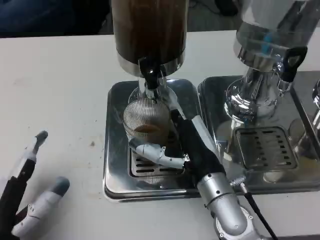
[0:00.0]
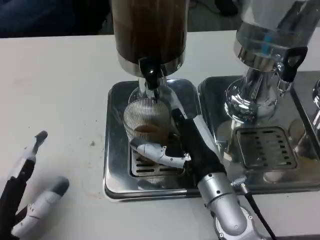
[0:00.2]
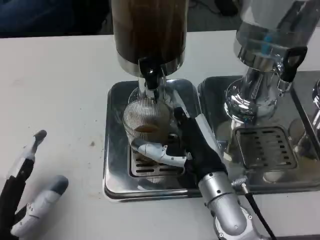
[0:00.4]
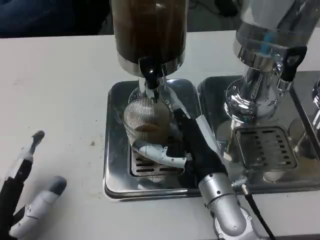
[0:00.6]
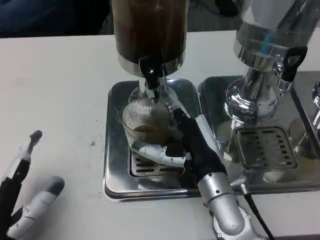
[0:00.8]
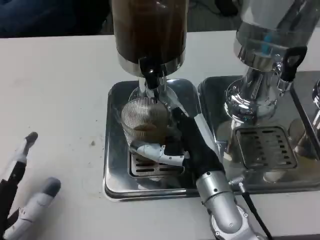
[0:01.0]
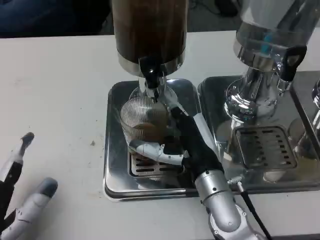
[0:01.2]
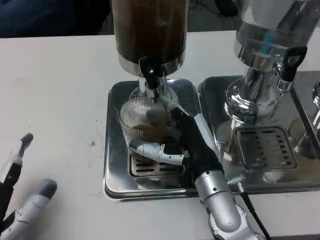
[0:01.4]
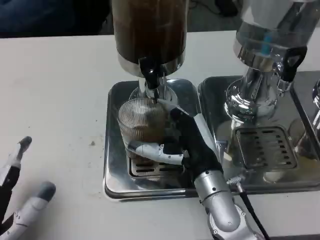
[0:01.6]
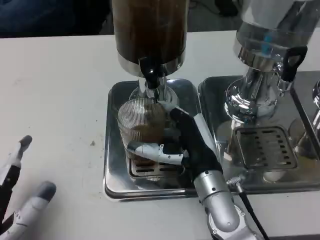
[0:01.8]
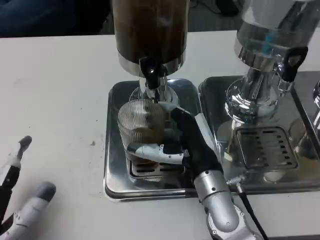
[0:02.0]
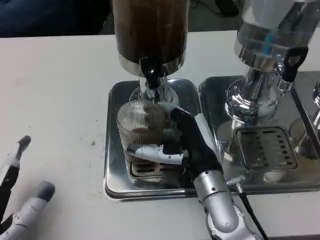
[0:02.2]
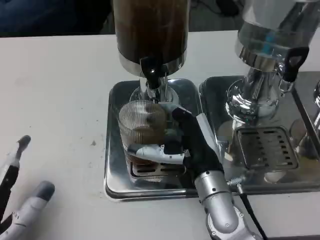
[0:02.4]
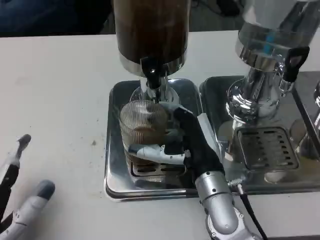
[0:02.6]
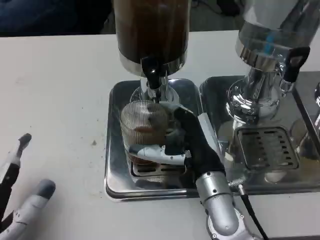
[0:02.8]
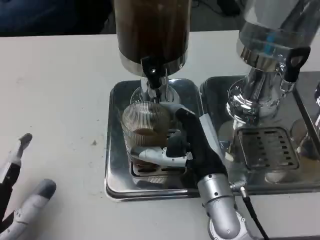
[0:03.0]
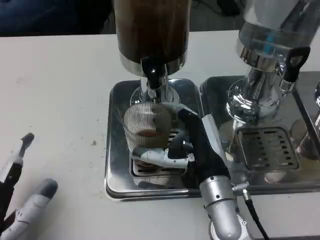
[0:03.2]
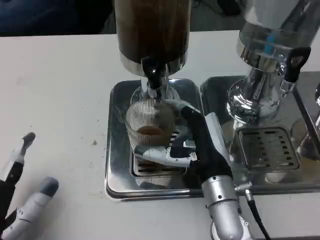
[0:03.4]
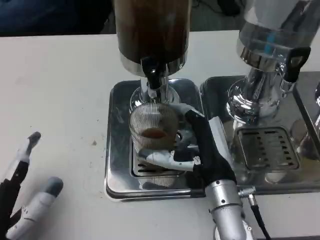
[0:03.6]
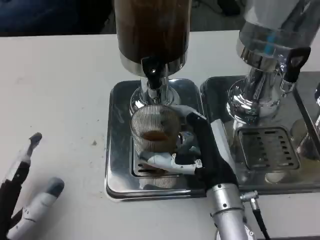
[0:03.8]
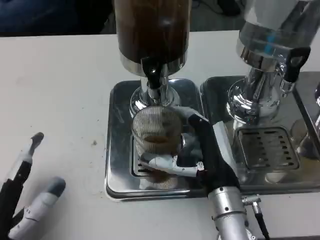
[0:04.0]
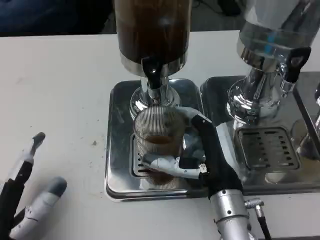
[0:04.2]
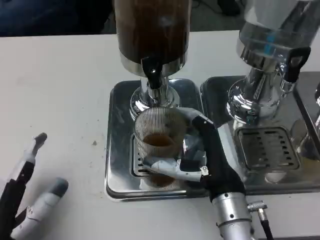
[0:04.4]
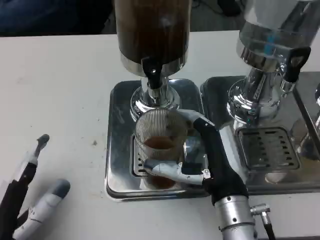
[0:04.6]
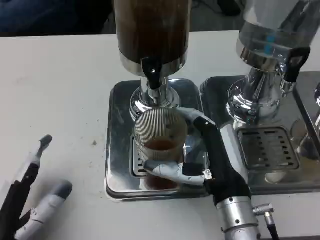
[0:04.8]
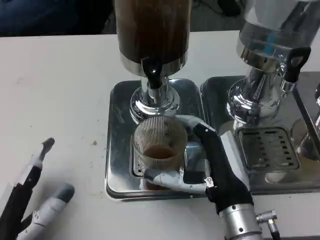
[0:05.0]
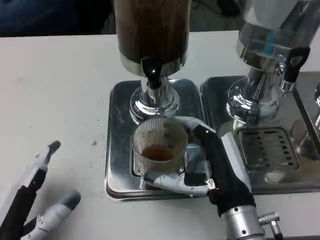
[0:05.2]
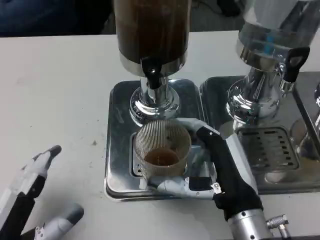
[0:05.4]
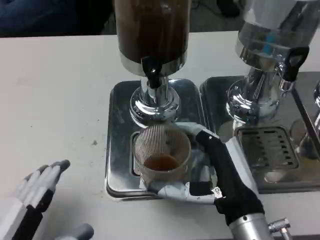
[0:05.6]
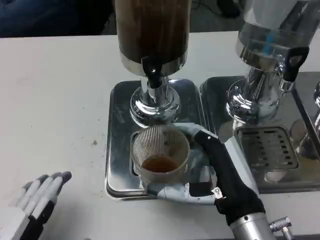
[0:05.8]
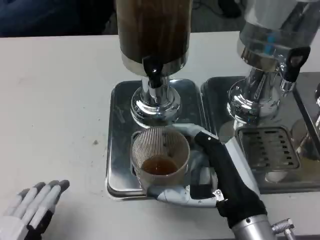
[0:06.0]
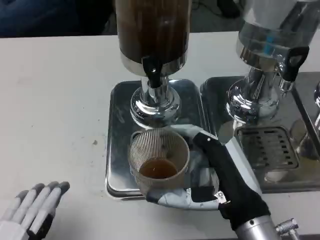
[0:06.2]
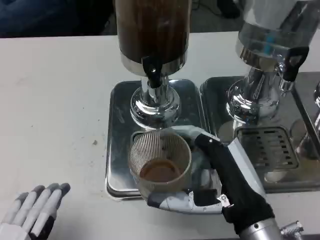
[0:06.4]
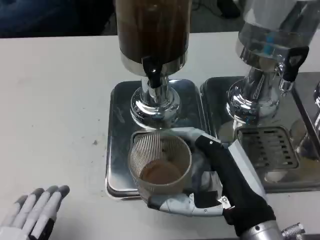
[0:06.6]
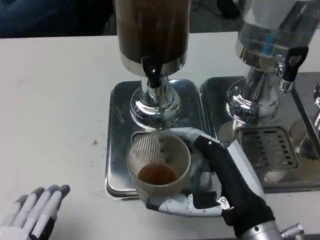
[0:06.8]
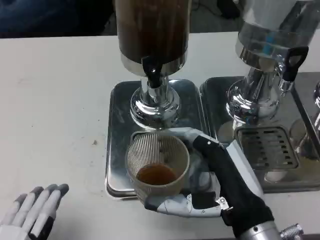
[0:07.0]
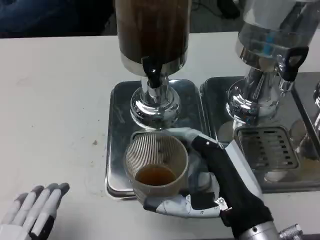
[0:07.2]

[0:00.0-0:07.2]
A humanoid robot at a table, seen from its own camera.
Task of the whole recording: Grasp the cup under the faucet to collect the drink, then remove the cup.
0:00.0 to 0:01.4: The two hands keep their place.
0:01.4 to 0:04.4: The hands stay close to where they were, moving slightly.
0:04.4 to 0:05.8: The left hand moves roughly 5 cm. Meanwhile the right hand shifts by about 5 cm.
0:05.8 to 0:07.2: There are only small adjustments of the hands.

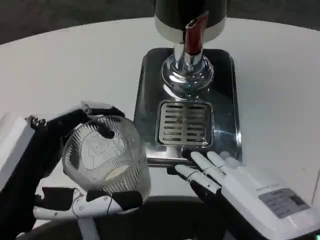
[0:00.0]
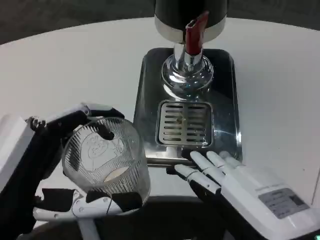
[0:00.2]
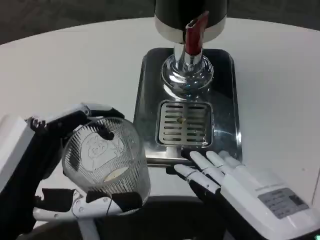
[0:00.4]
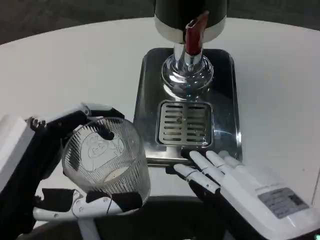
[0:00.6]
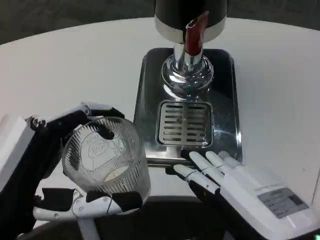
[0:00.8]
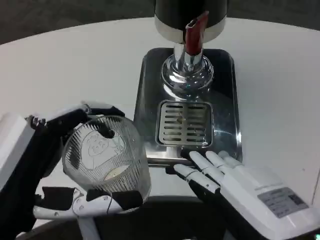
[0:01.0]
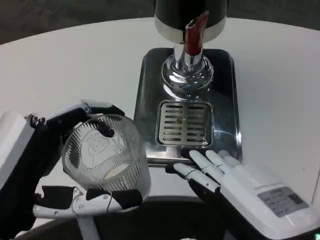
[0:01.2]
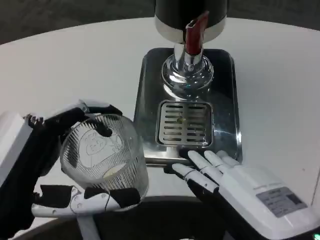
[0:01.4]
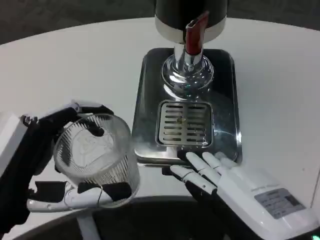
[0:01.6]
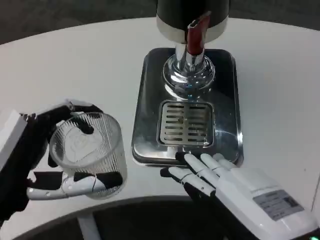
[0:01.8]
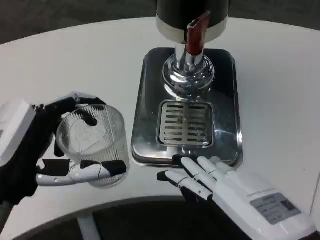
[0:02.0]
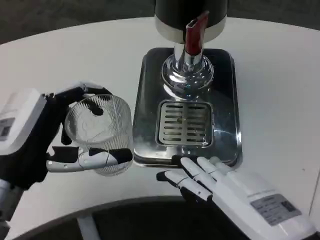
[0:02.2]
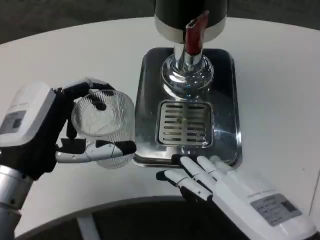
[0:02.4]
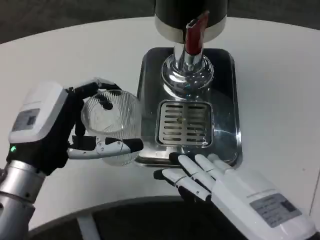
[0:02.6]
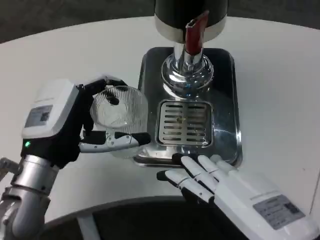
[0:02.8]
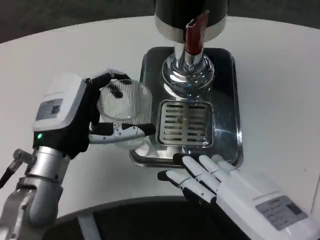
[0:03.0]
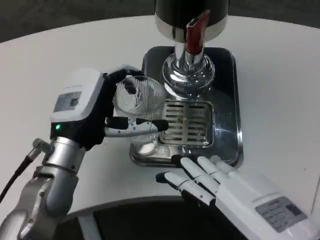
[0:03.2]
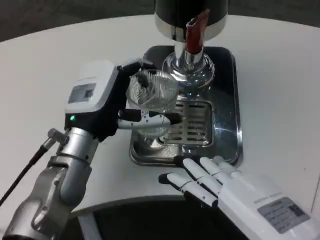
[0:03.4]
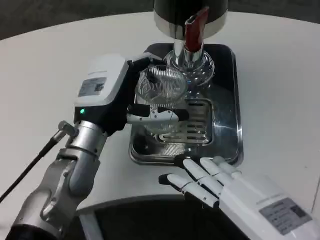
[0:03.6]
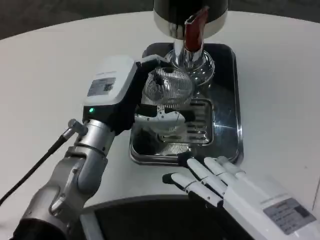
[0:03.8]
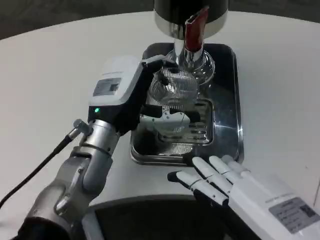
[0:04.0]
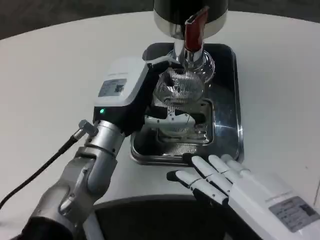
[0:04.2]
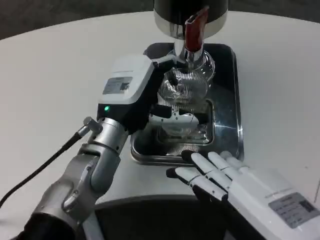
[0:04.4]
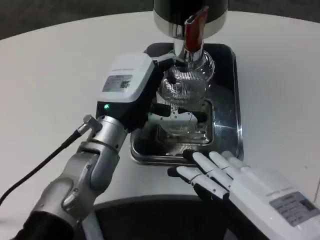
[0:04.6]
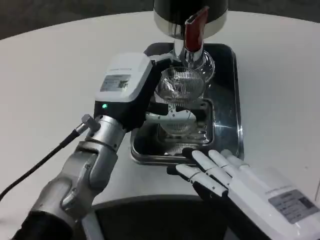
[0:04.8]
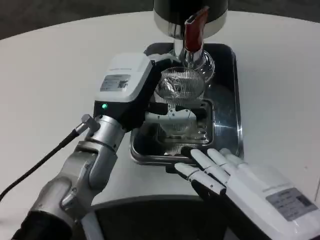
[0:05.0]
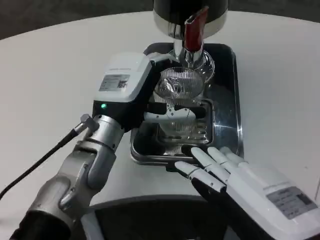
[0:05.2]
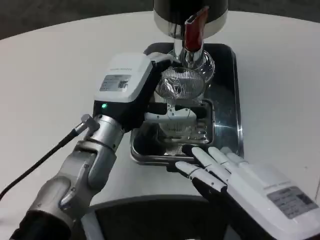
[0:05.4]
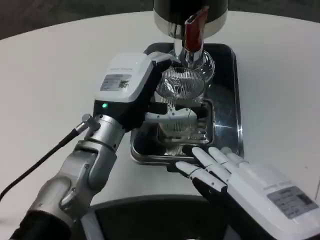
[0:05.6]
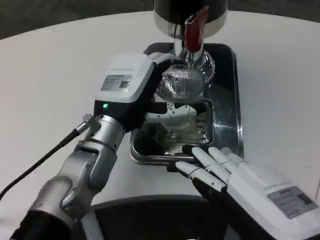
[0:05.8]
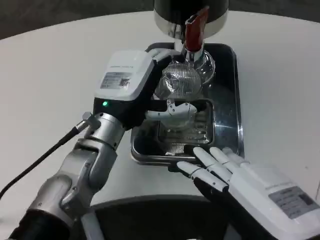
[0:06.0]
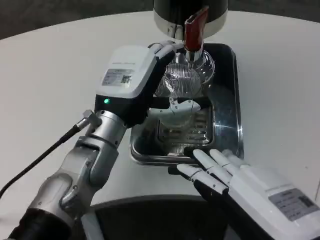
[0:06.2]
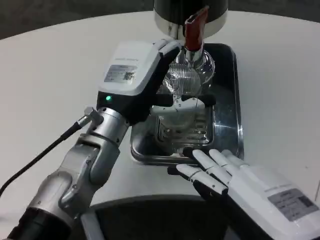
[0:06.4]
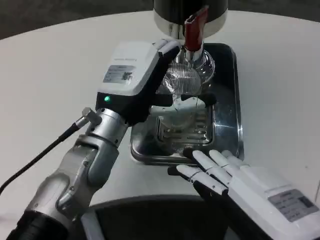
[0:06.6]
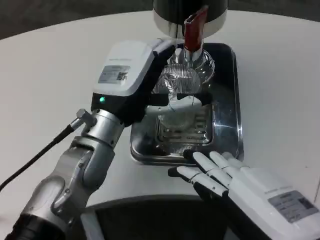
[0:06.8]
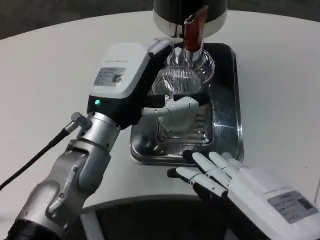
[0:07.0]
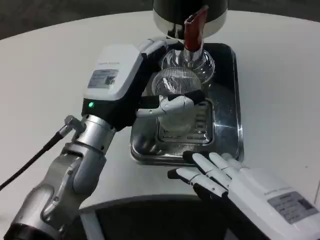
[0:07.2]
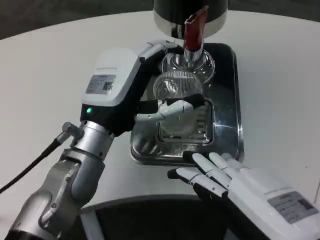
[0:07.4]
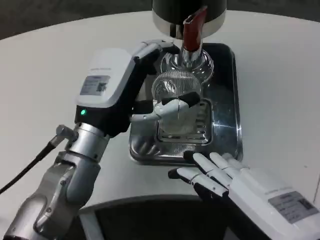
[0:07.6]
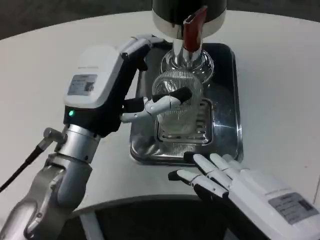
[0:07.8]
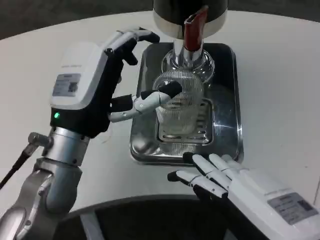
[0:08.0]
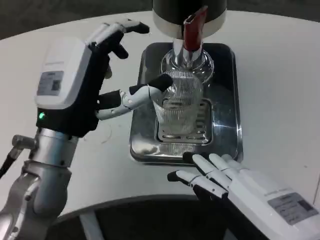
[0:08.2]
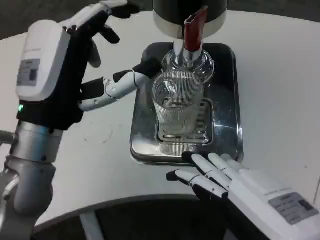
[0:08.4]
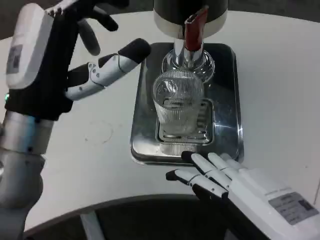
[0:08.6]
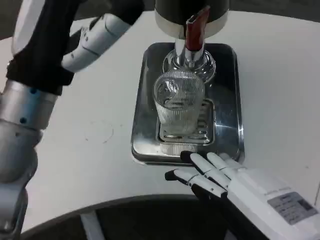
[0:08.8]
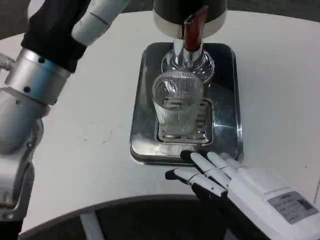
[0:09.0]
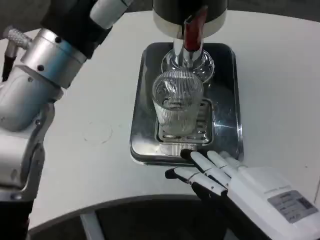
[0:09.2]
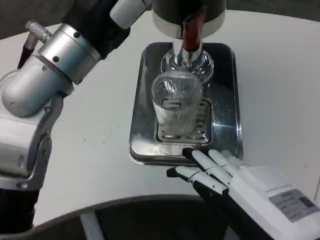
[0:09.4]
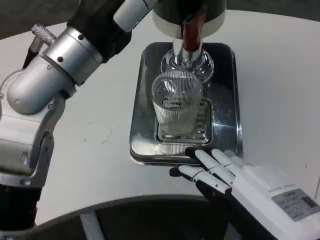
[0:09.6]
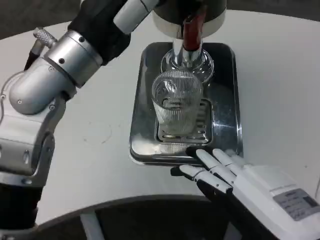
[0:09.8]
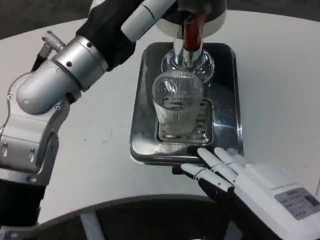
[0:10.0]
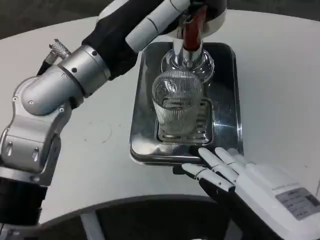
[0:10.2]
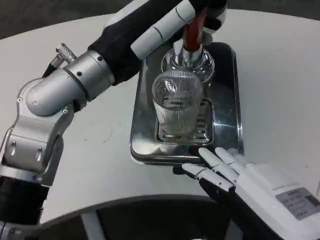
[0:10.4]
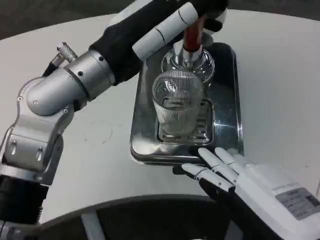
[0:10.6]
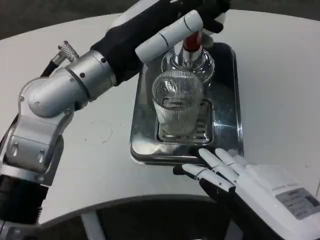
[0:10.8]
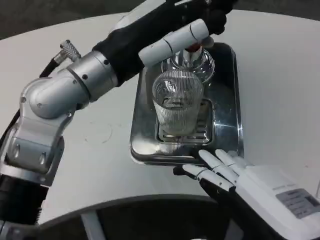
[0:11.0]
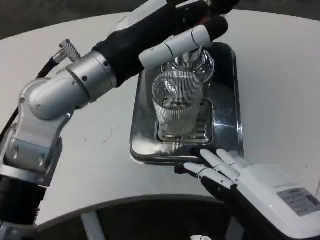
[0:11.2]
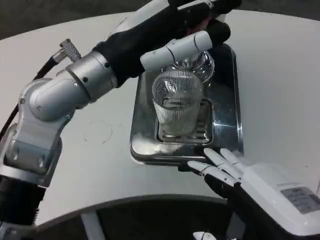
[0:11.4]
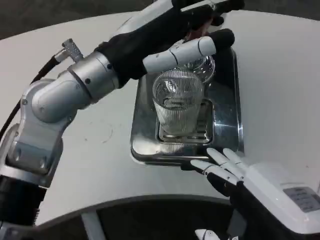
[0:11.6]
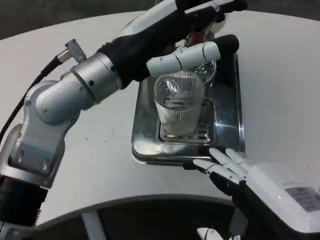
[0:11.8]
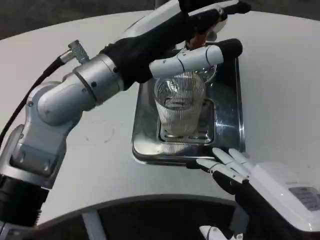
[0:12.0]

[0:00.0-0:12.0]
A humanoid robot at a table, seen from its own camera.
Task of the whole recording: Grasp the cup under the faucet to collect the drink, then remove the cup.
0:00.0 to 0:01.6: Neither hand changes place.
0:01.6 to 0:03.0: The left hand goes some 15 cm forward.
0:03.0 to 0:04.4: The left hand travels to the right by about 5 cm.
0:04.4 to 0:06.0: The hands stay close to where they were, moving slightly.
0:07.6 to 0:09.0: The left hand travels upward by some 10 cm.
0:09.0 to 0:10.4: The left hand shifts by approximately 5 cm.

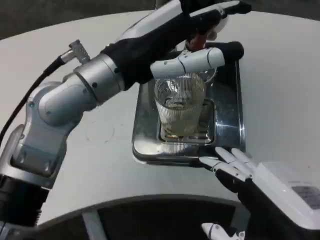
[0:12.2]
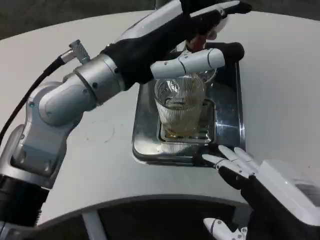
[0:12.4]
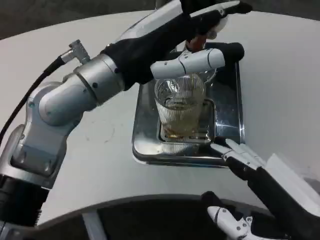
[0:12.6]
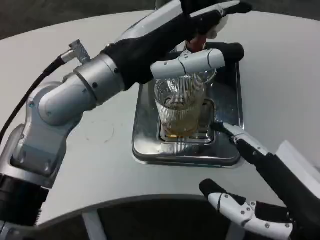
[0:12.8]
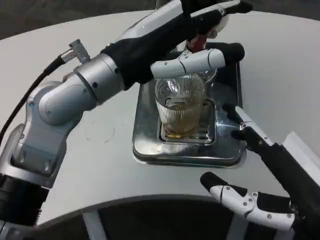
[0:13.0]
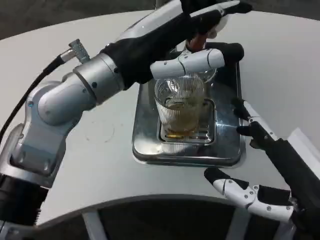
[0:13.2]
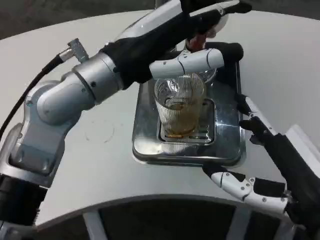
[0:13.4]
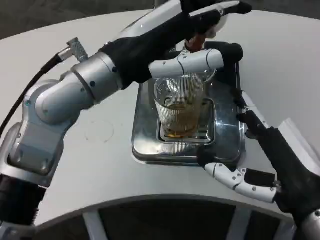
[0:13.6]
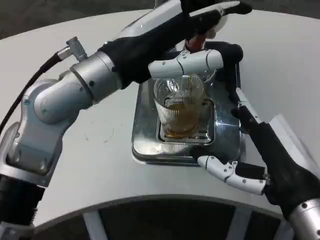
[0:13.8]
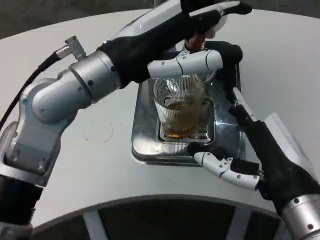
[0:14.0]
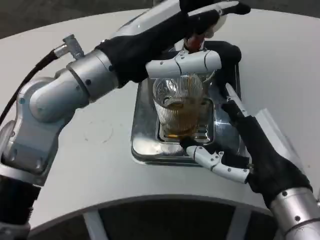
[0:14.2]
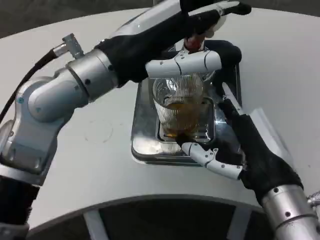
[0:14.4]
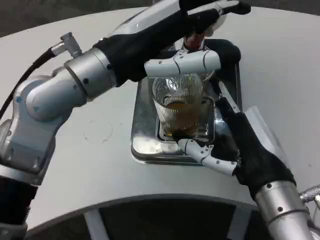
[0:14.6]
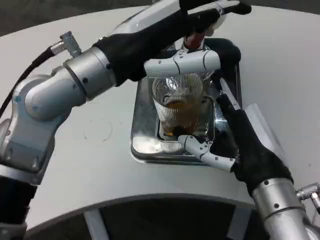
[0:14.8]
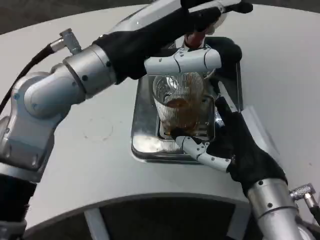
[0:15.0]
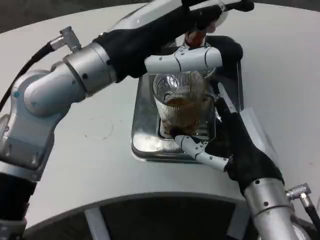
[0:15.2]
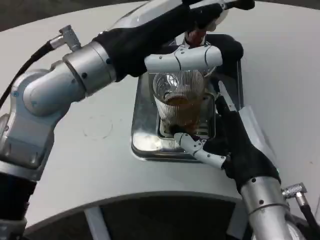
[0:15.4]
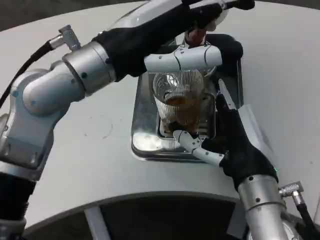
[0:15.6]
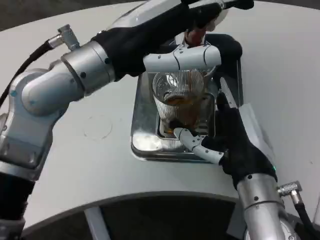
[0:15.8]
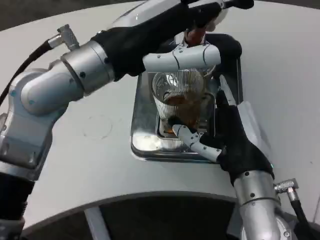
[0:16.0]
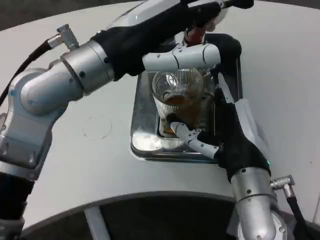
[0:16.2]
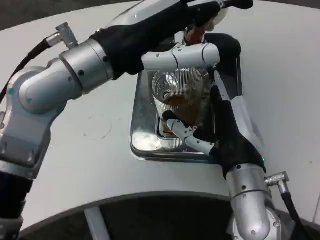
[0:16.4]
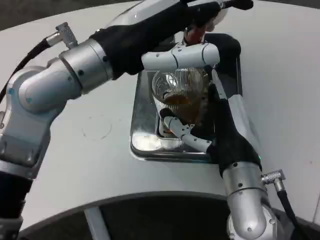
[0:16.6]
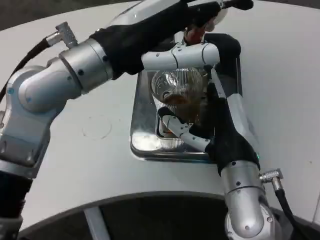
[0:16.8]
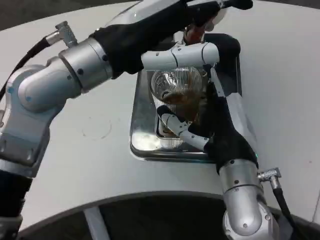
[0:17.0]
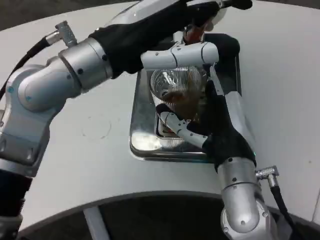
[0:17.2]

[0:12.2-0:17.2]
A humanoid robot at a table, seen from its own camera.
Task of the whole recording: Grasp the cup under the faucet to collect the drink, then remove the cup.
0:12.2 to 0:13.8: The right hand travels forward by roughly 5 cm.
0:13.8 to 0:15.6: The right hand shifts some 5 cm forward.
